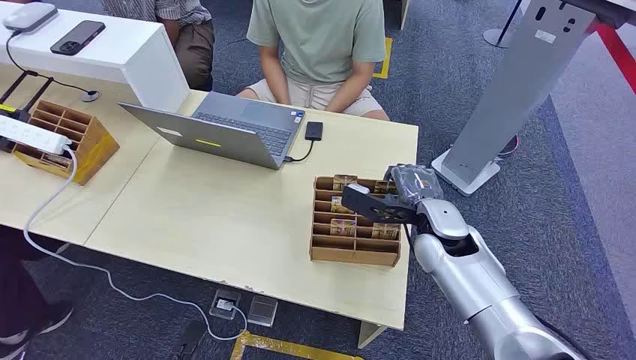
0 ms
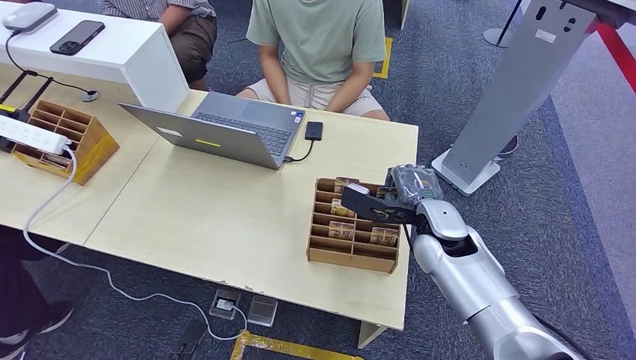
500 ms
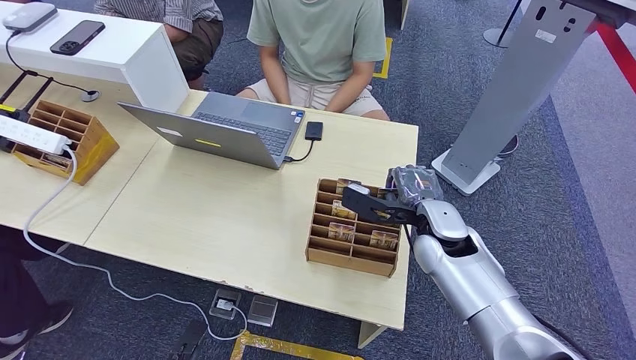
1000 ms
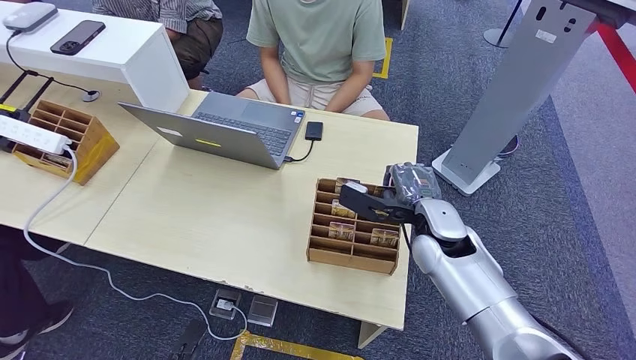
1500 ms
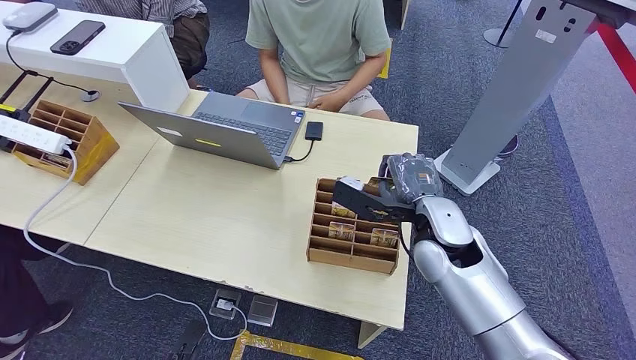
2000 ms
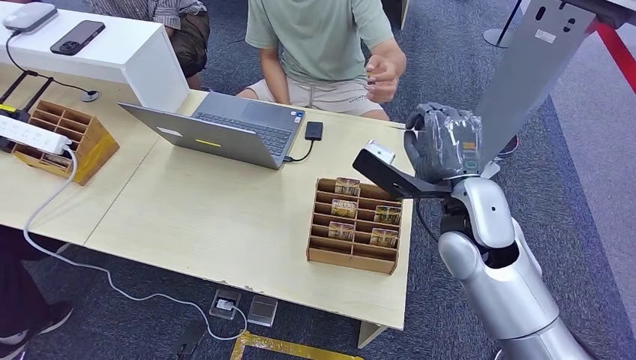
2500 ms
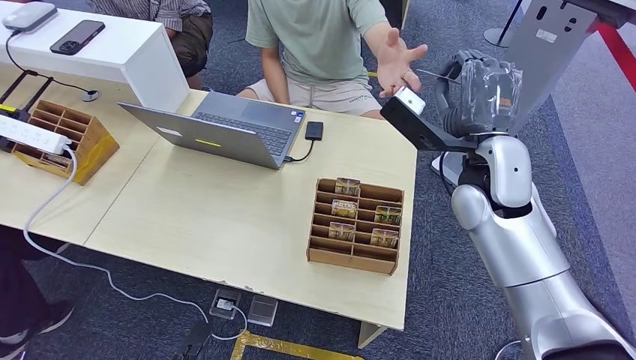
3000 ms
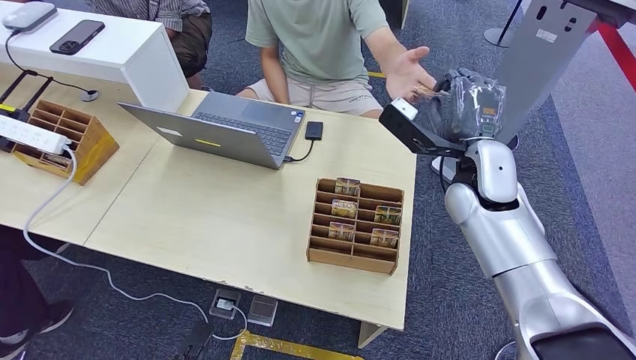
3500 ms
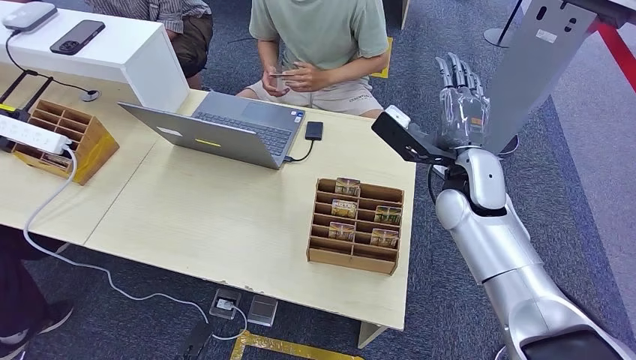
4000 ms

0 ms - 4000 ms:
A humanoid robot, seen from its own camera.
Step, 0 ms - 1500 ms: Pick up the room card from the card holder.
Step, 3000 ms - 4000 ms: Hand the room card to the target.
2000 ms - 4000 ms: The right hand shifts approximately 10 cm forward and upward.
